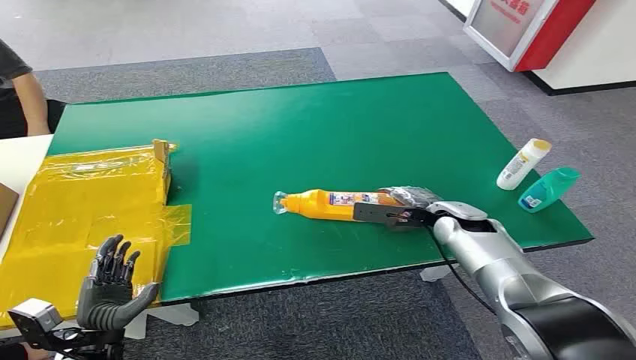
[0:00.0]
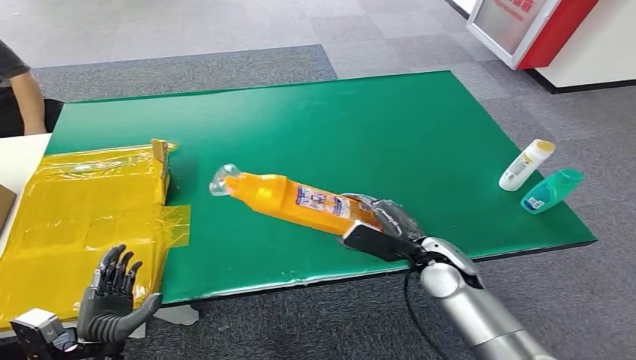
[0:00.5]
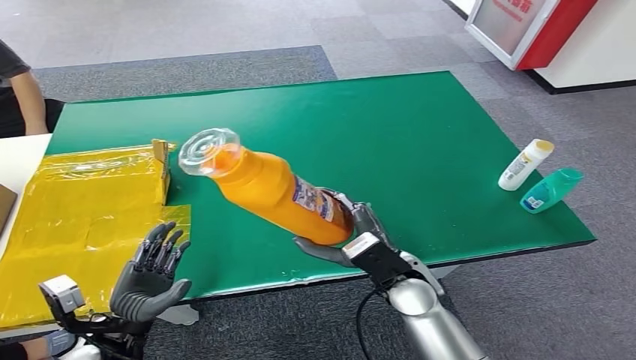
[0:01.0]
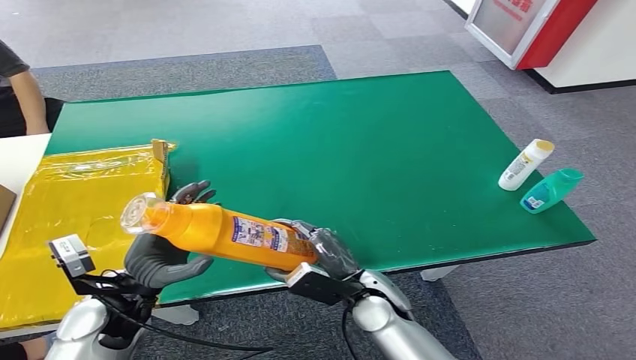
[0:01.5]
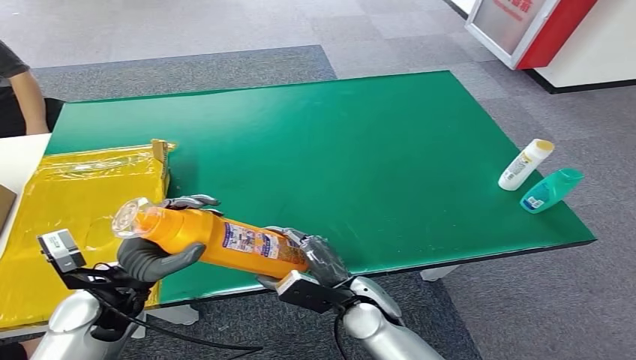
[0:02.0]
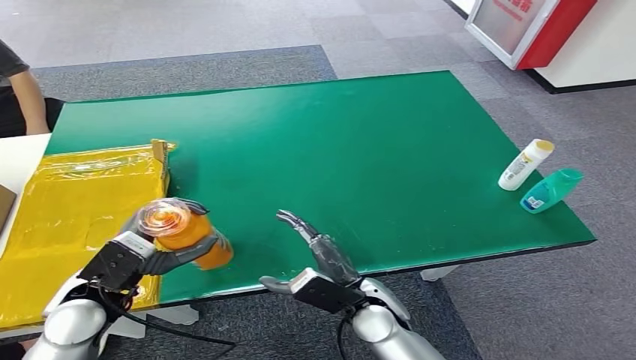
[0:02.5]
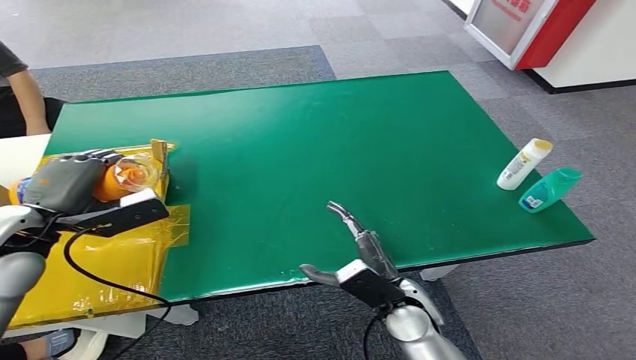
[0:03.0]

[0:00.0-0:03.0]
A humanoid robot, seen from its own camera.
Step, 0:00.0 to 0:01.0: Pick up the bottle from the table.
Step, 0:01.5 to 0:03.0: Turn the bottle to the front side.
0:01.5 to 0:03.0: The left hand is displaced upward, to the left and forward by some 15 cm.
